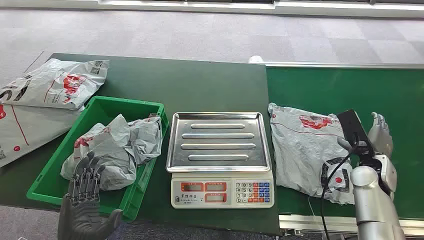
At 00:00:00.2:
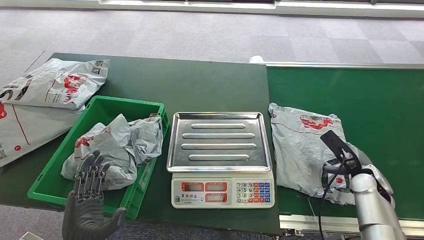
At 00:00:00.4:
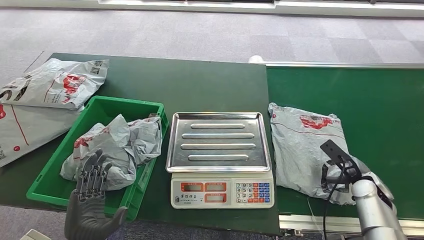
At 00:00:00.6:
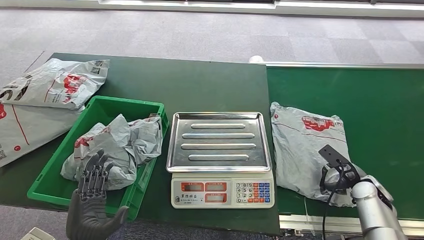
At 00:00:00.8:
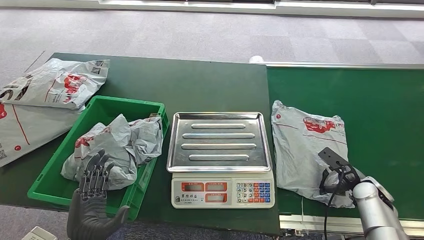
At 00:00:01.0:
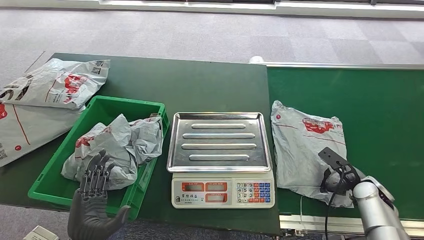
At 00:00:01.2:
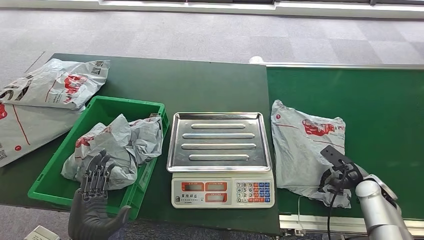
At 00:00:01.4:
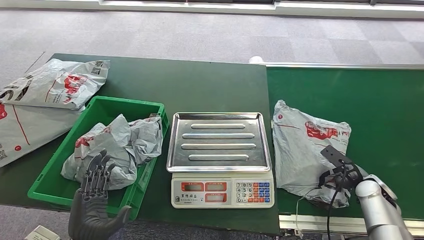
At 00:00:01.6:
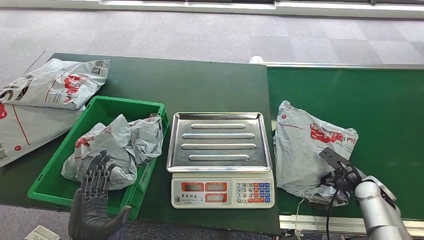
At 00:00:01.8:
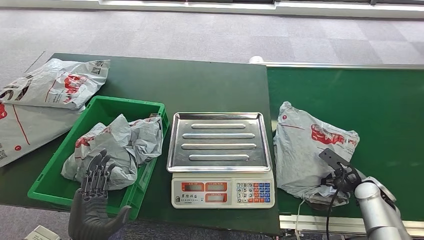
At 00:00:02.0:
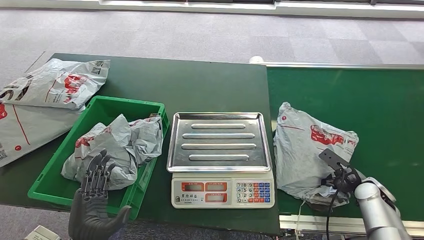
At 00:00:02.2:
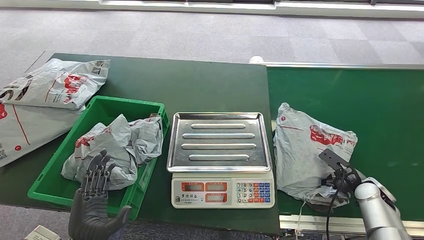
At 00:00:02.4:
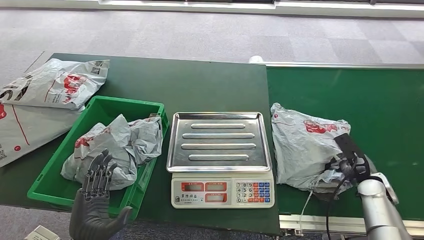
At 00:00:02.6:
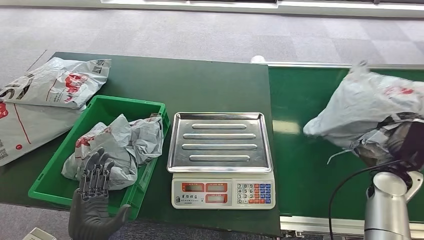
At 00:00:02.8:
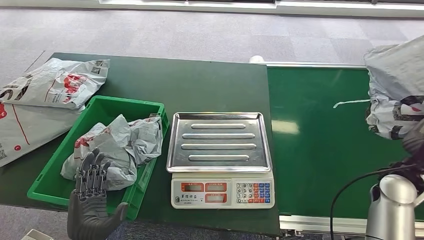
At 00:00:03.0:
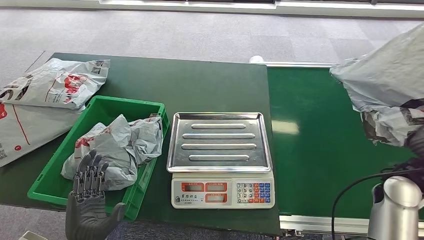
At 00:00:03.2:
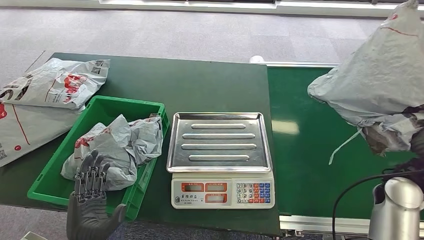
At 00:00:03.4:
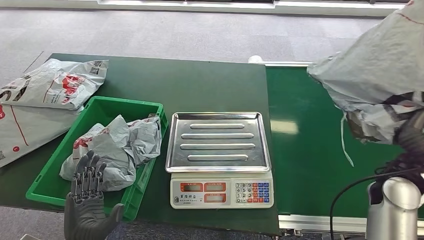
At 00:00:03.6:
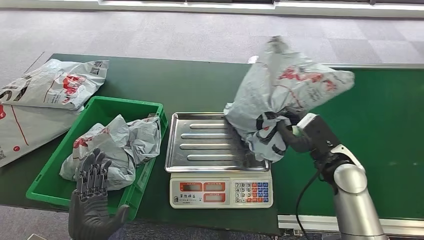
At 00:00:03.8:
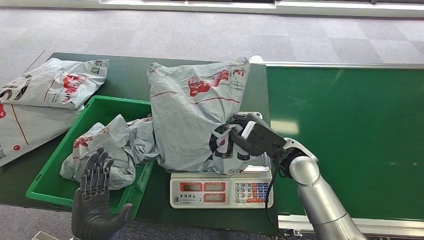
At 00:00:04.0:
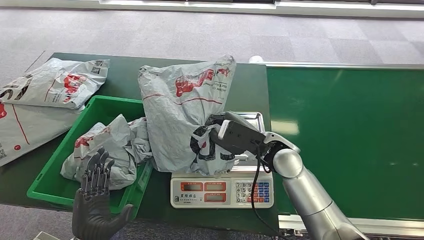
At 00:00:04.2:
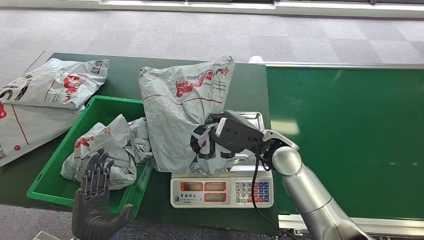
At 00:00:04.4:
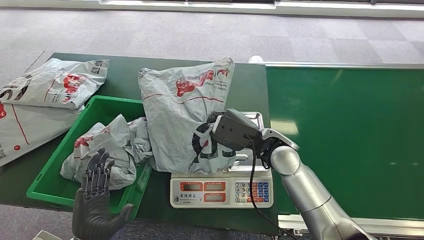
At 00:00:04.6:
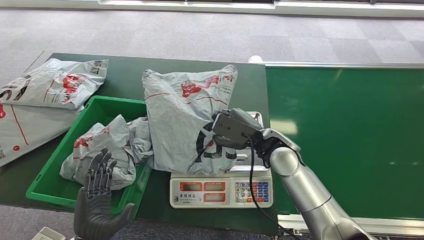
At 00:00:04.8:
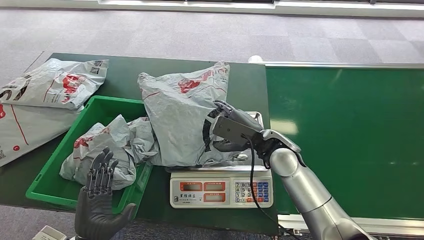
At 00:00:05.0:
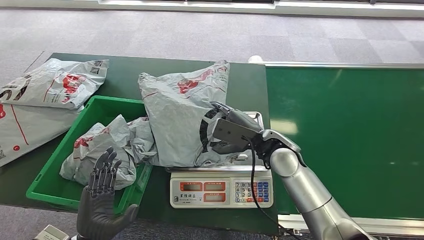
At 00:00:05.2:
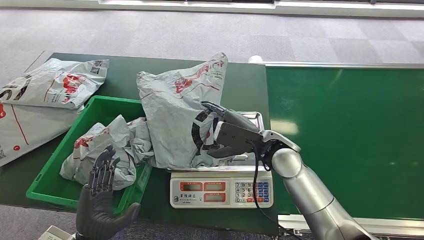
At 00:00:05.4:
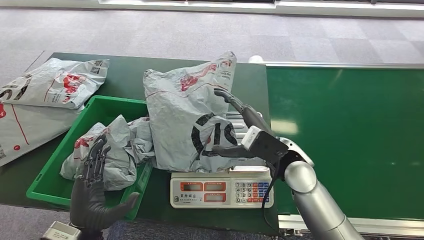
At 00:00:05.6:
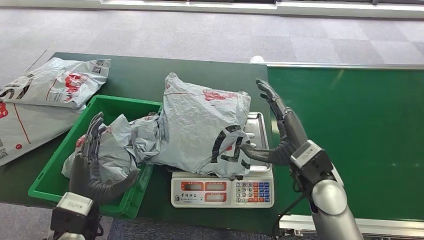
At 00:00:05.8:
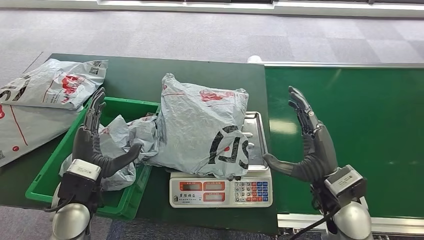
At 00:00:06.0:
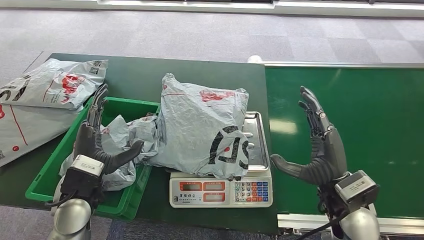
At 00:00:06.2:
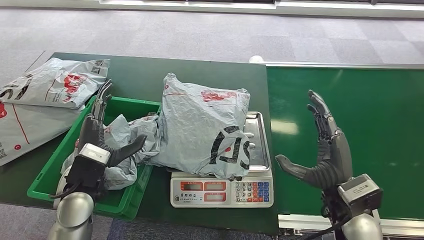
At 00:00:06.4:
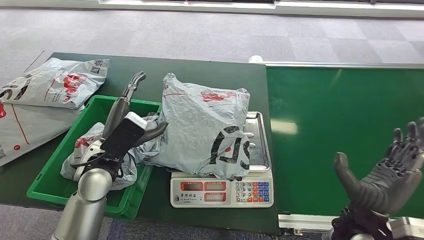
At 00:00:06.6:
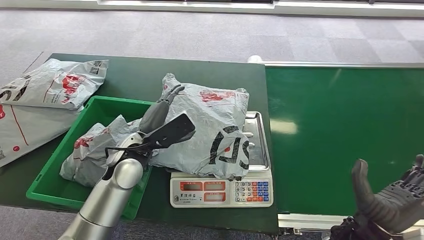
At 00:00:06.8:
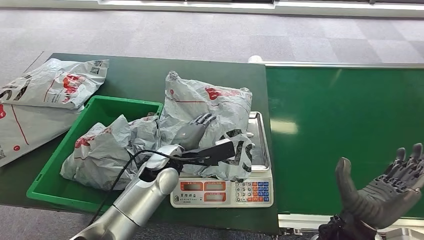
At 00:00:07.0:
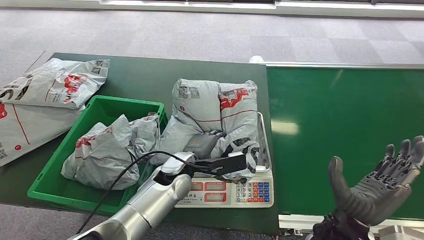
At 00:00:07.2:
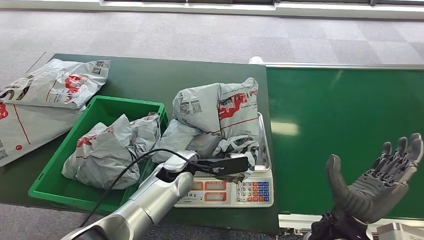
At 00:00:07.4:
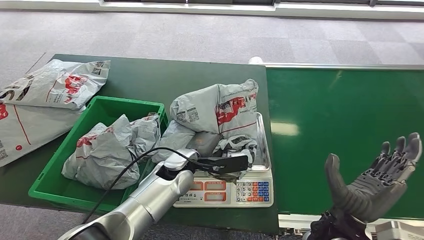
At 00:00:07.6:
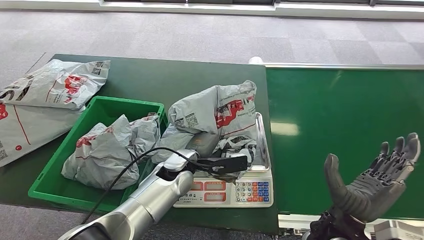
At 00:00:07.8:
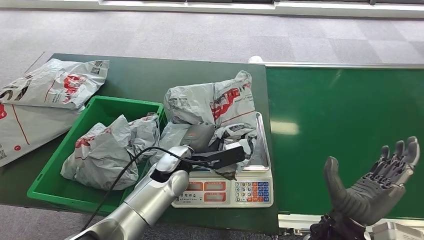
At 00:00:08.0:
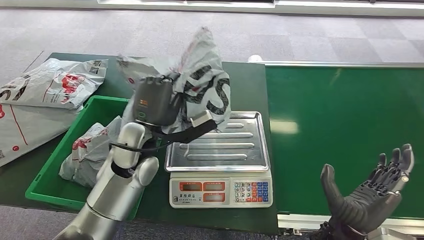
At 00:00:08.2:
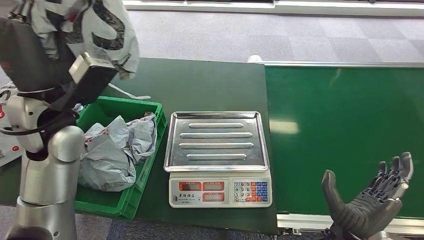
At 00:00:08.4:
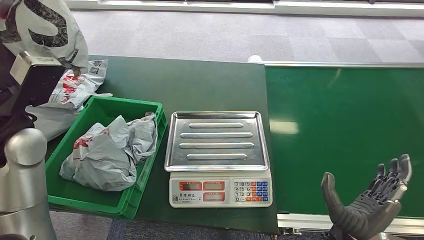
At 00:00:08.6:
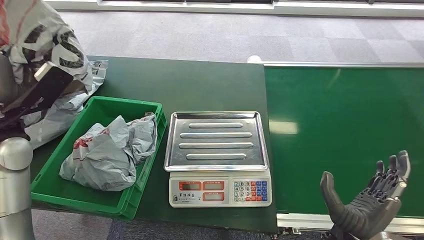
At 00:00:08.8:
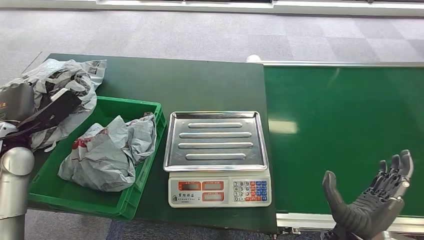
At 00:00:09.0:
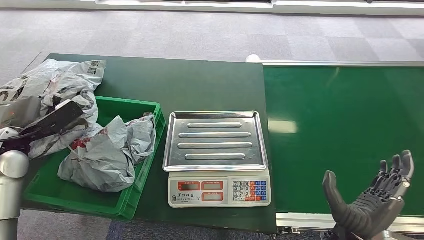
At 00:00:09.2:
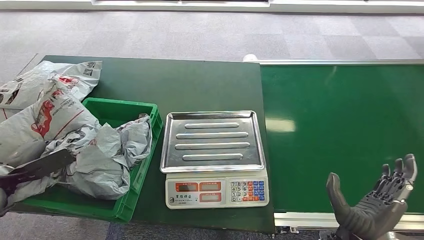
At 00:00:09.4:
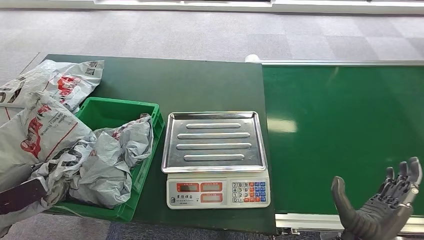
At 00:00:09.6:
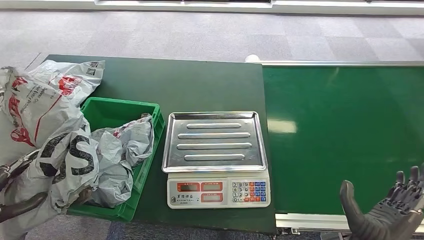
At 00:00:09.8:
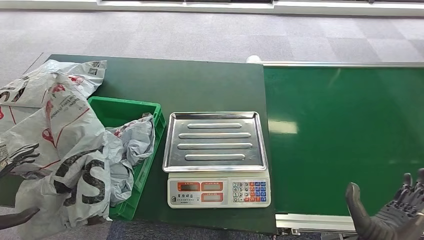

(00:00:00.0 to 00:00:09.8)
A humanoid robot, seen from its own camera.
Step, 00:00:00.0 - 00:00:03.0: Pick up the package from the conveyor belt.
Step, 00:00:03.2 - 00:00:05.6: Place the package onto the inbound machine.
Step, 00:00:05.8 - 00:00:08.2: Pick up the package from the inbound machine.
Step, 00:00:08.4 - 00:00:09.8: Place the package into the parcel locker.
00:00:01.4 - 00:00:02.8: The right hand heads upward, covering some 10 cm.
